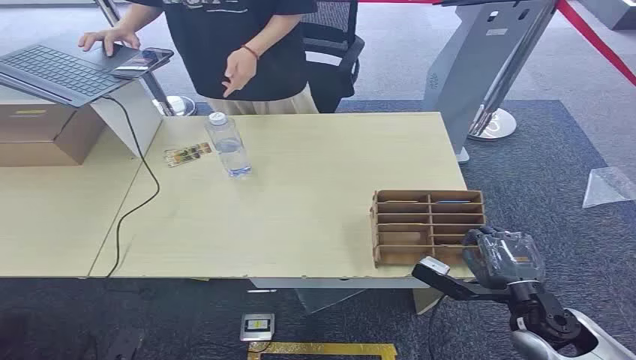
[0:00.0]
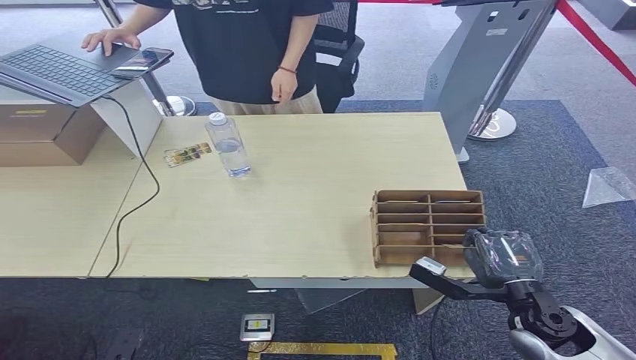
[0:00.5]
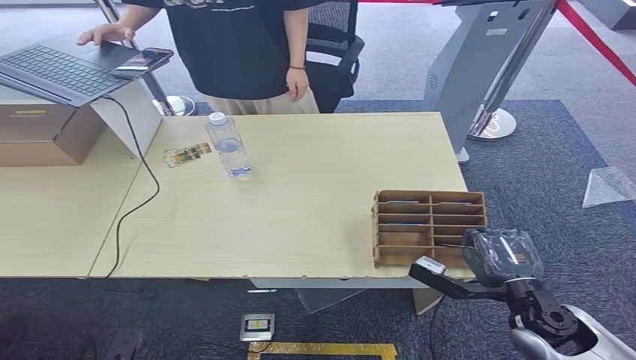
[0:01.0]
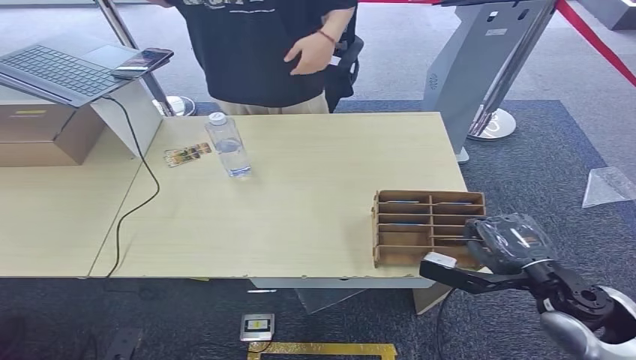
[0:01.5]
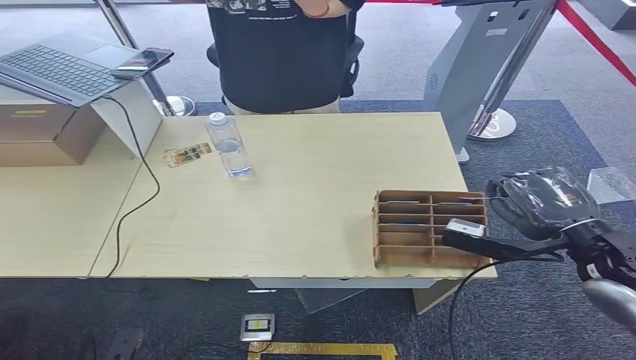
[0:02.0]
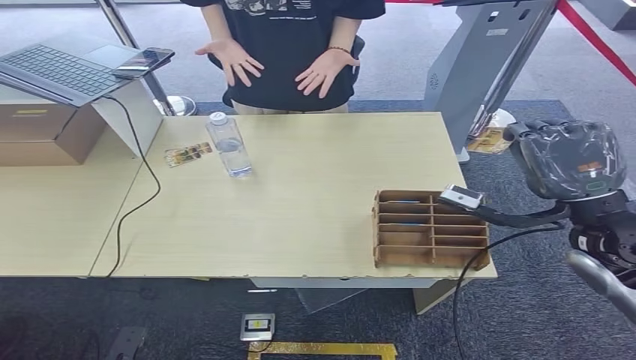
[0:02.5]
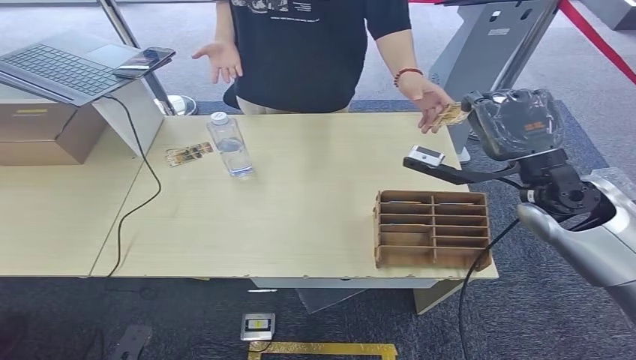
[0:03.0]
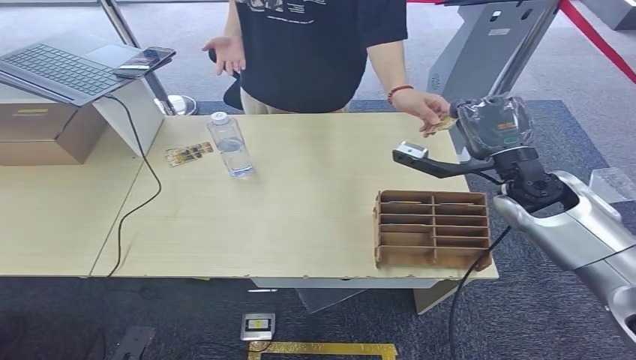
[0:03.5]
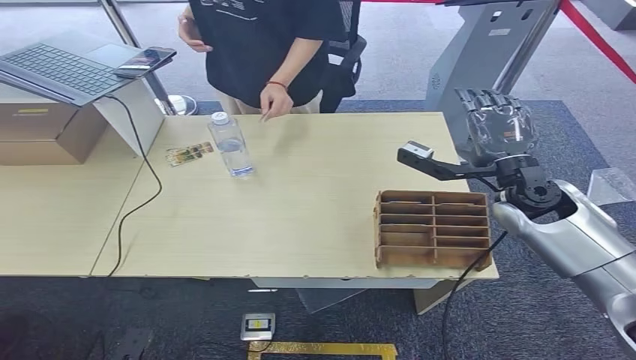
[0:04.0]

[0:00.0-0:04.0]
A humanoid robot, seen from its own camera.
Step, 0:00.0 to 0:02.0: Pick up the key card from the card box.
Step, 0:02.5 to 0:04.0: Hand the key card to the target.
0:02.0 to 0:04.0: The right hand travels forward and to the left by some 15 cm.
